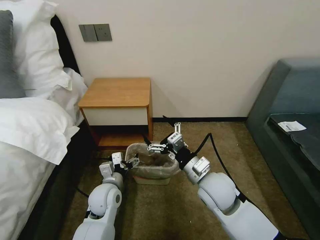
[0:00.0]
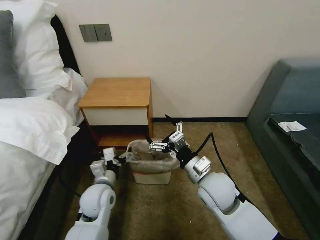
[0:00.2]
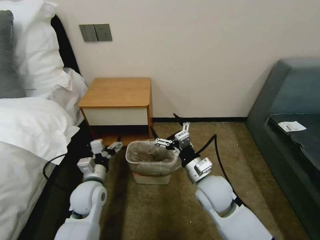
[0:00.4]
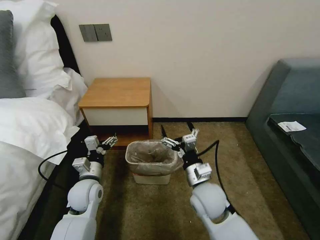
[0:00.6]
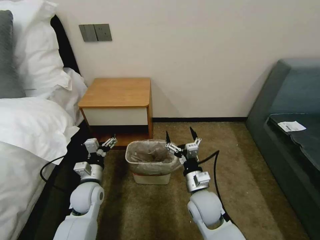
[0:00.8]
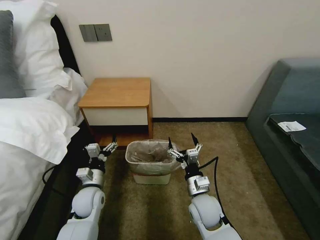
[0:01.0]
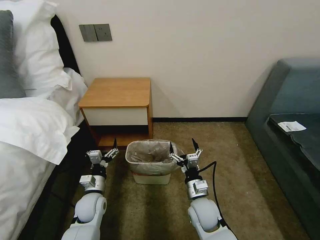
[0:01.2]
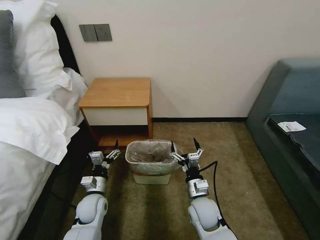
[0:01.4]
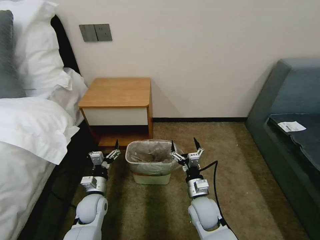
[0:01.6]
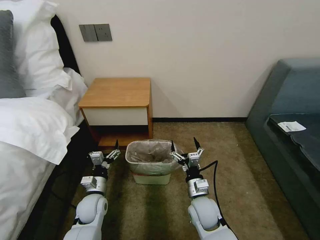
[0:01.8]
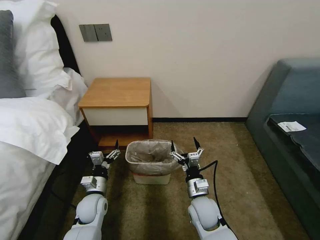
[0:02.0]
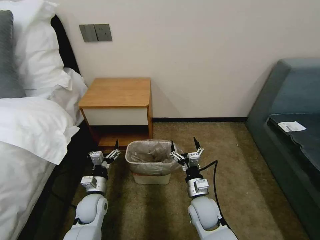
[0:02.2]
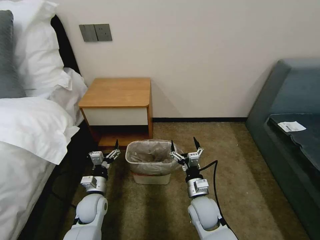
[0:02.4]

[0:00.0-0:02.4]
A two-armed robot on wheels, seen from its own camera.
Task of the whole recording: Pick up the garbage bag from the table and place it over the trash can.
0:00.0 to 0:01.2: The left gripper moves downward and to the left, approximately 10 cm; the right gripper travels downward by roughly 15 cm.
0:01.2 to 0:02.4: The two grippers keep their place.

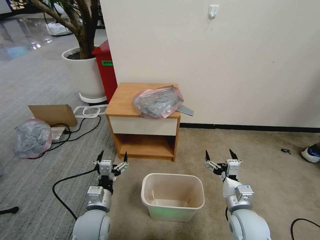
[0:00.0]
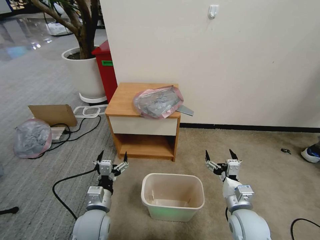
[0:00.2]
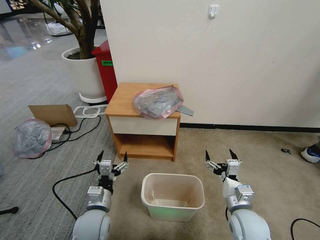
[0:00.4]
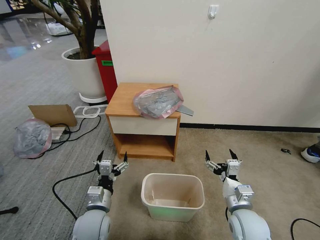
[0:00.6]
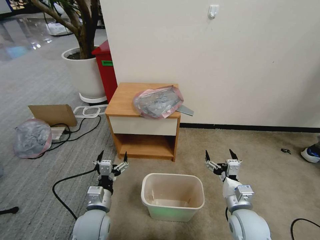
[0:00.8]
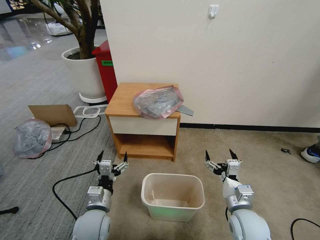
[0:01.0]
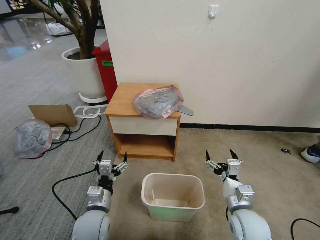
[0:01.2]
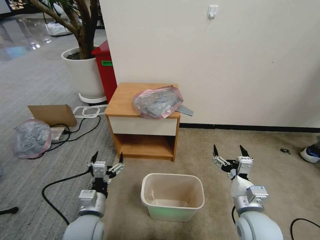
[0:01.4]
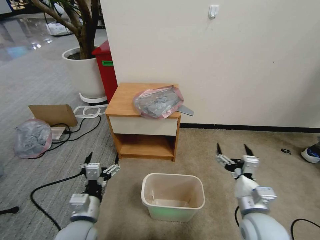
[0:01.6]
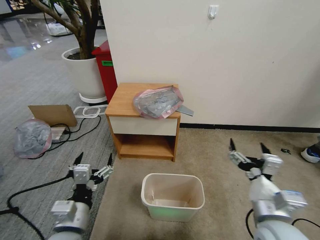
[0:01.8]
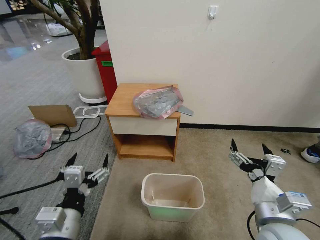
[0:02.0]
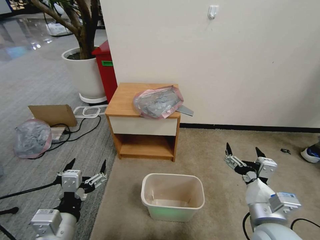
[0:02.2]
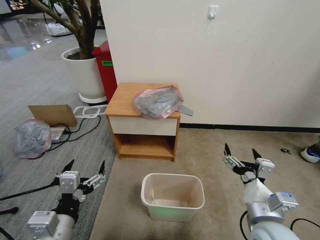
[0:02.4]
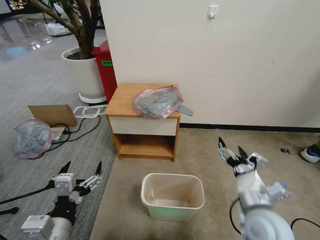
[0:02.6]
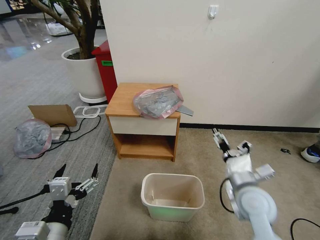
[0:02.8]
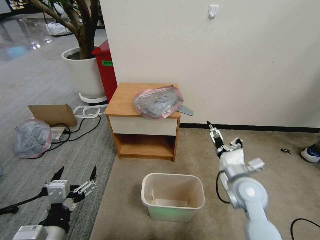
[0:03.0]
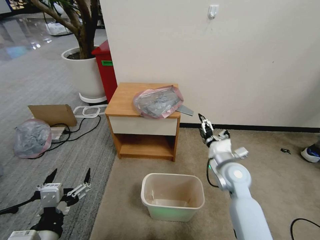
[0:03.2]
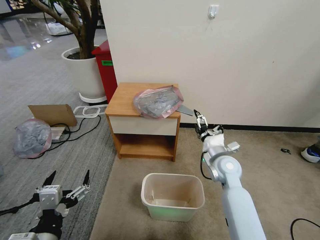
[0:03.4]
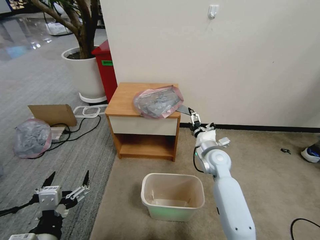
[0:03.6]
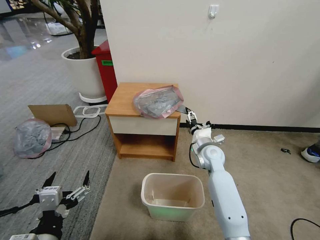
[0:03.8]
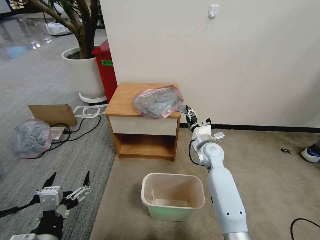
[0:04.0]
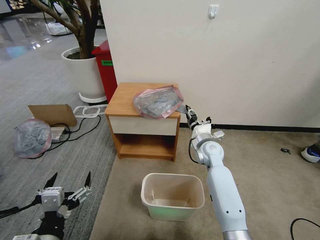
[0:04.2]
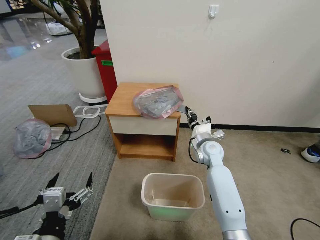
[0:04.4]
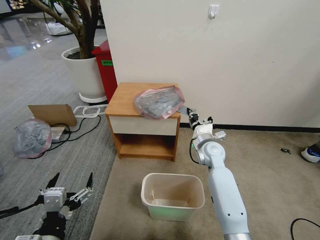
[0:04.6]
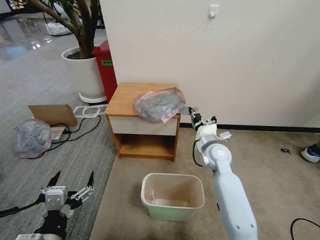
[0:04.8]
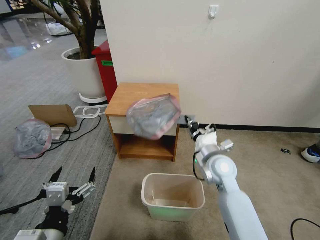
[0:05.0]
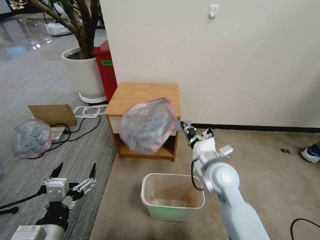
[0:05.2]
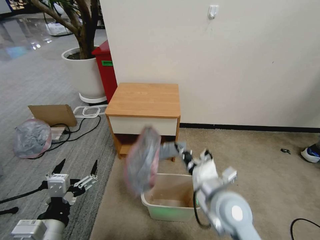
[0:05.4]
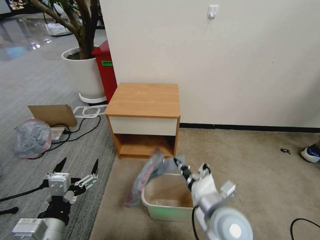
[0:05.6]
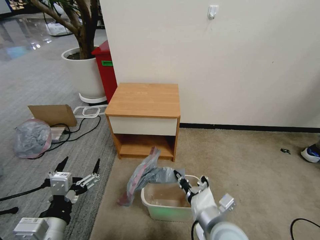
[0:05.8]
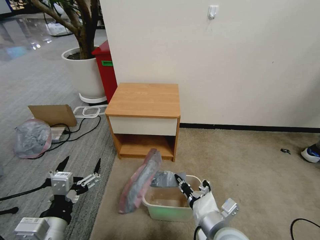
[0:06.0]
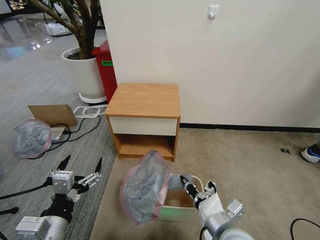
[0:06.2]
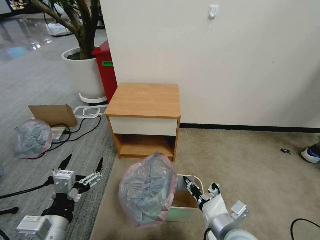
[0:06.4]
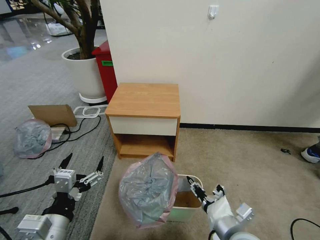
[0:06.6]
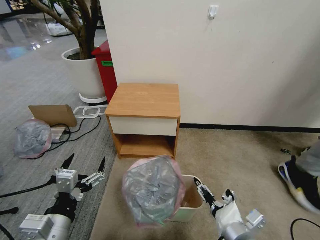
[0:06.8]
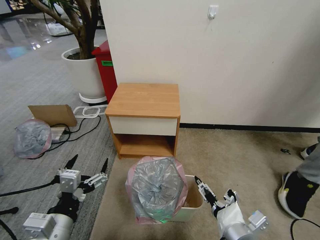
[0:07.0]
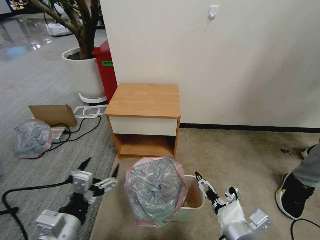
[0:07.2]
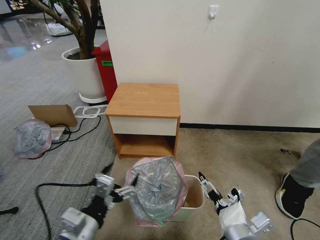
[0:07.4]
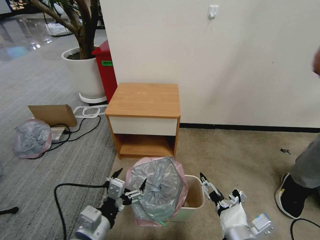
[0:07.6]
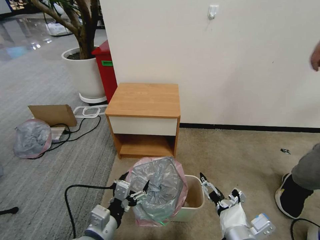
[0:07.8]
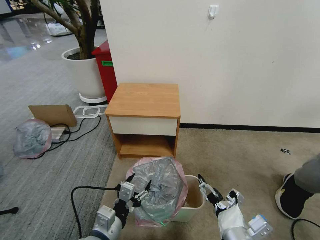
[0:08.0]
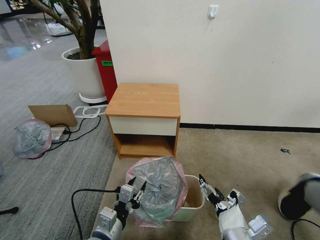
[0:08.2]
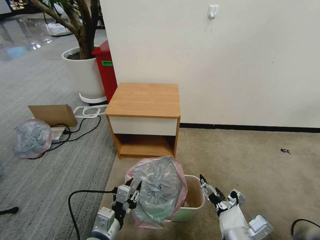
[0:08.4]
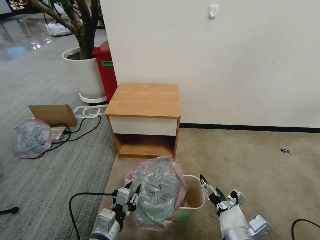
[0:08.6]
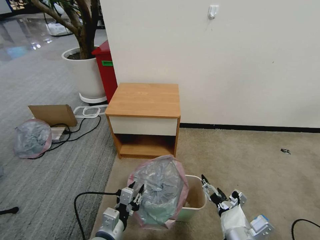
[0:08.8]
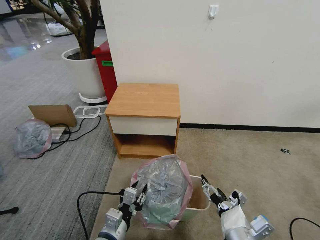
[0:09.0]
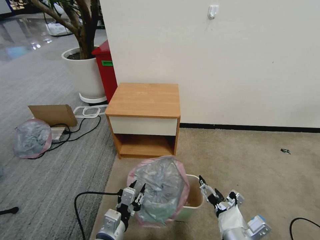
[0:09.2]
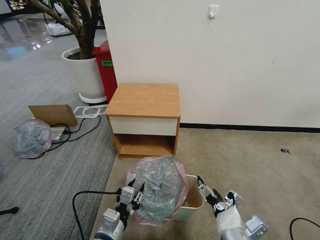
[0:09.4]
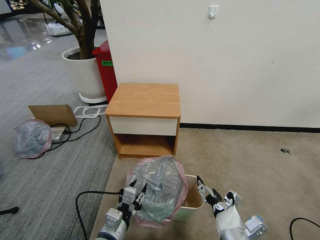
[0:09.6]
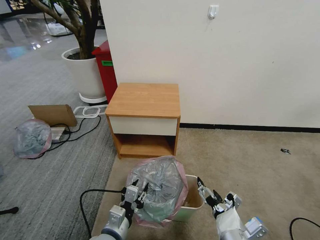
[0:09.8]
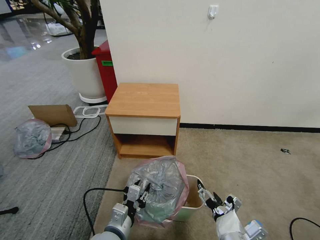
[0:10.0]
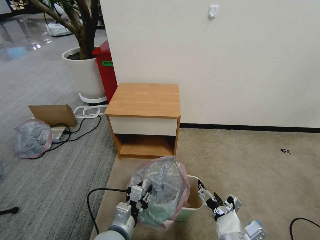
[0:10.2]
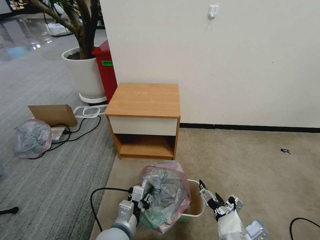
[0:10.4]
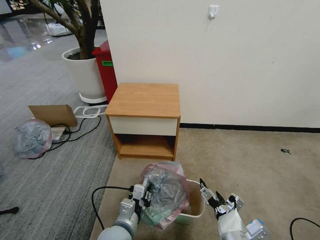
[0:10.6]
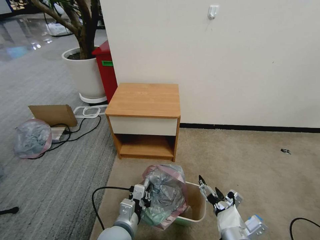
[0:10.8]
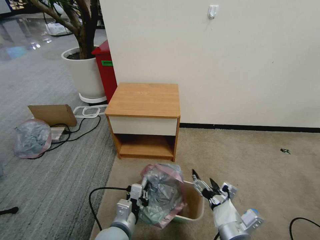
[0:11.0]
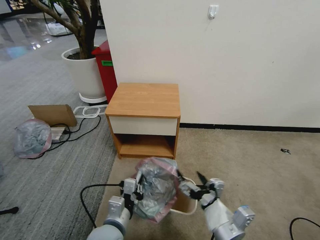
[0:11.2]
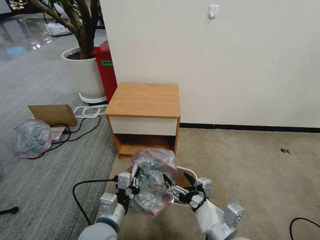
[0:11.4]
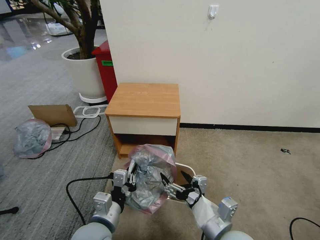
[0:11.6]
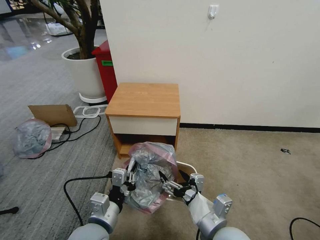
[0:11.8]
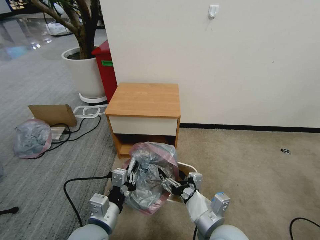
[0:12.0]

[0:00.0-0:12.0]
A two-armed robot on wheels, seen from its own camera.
Task of the whole recording: Pick up the garbage bag from the table and place it over the trash can.
0:01.6 to 0:03.0: The right gripper shifts about 10 cm forward; the left gripper goes roughly 10 cm backward and upward.
0:03.0 to 0:04.4: The right gripper shifts about 15 cm forward and to the left, and closes up.
0:04.4 to 0:06.0: The right gripper travels backward by roughly 30 cm.
0:06.0 to 0:07.6: The left gripper travels to the right by some 5 cm. Meanwhile the right gripper changes place by about 5 cm, and opens up.
0:07.6 to 0:09.0: The left gripper heads downward, covering approximately 10 cm, and closes up.
0:09.0 to 0:10.4: The grippers stay close to where they were, moving slightly.
0:10.4 to 0:12.0: The right gripper changes place by about 10 cm, while the left gripper travels upward by some 5 cm, and closes.

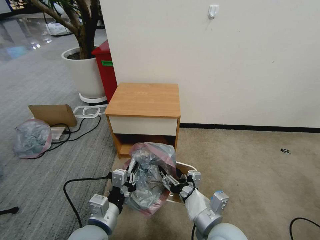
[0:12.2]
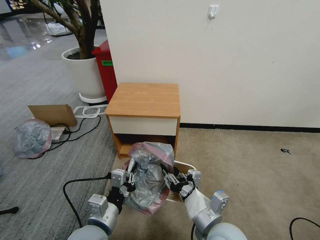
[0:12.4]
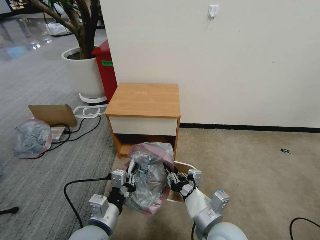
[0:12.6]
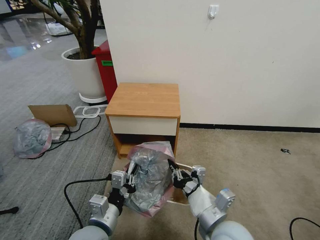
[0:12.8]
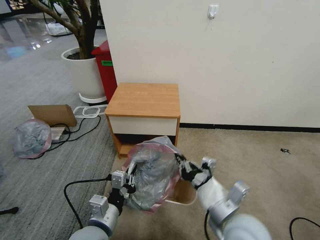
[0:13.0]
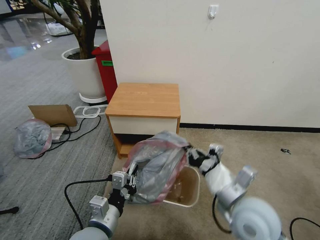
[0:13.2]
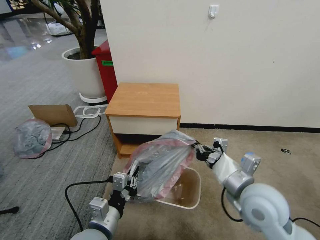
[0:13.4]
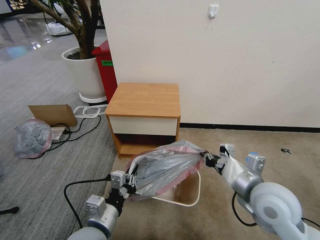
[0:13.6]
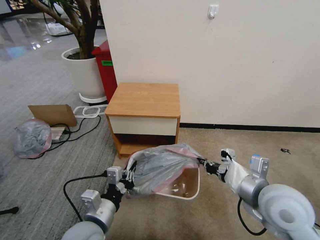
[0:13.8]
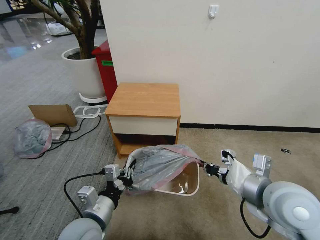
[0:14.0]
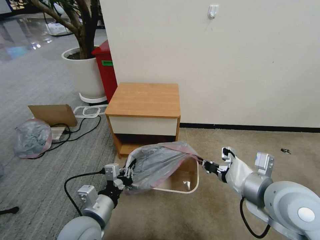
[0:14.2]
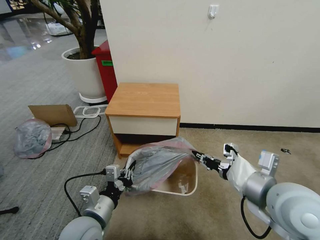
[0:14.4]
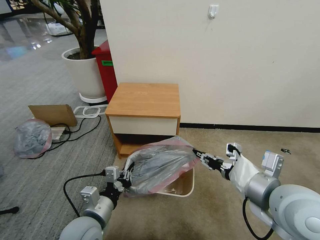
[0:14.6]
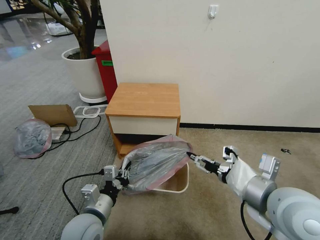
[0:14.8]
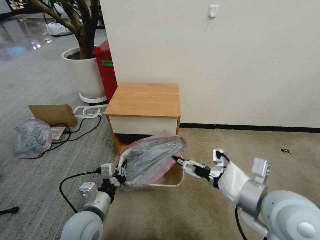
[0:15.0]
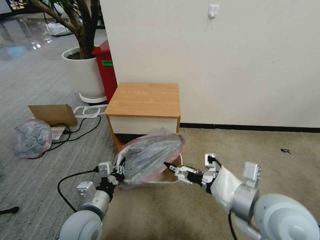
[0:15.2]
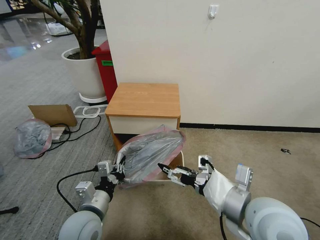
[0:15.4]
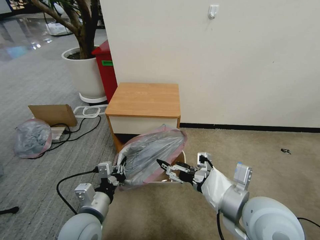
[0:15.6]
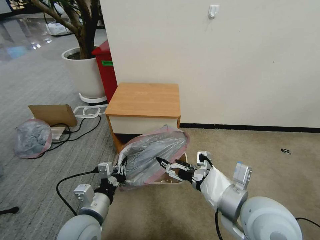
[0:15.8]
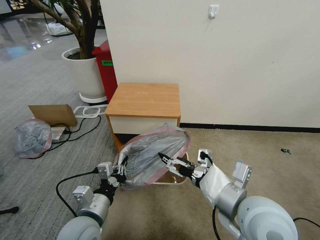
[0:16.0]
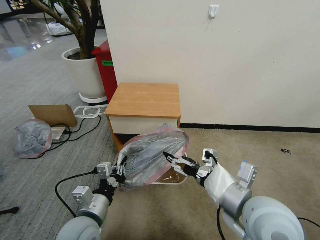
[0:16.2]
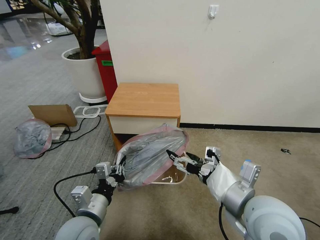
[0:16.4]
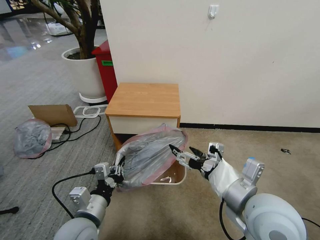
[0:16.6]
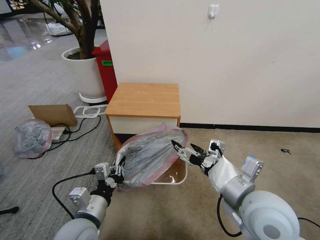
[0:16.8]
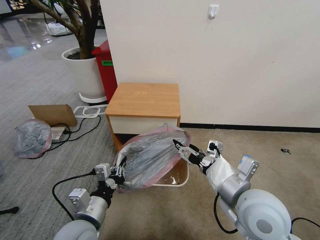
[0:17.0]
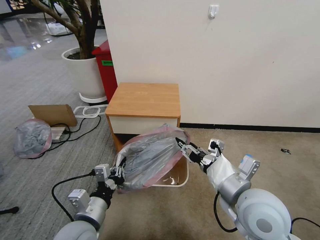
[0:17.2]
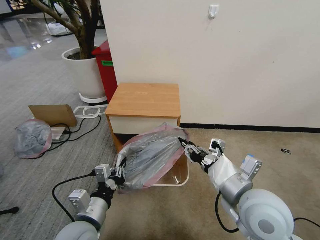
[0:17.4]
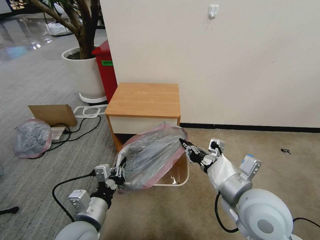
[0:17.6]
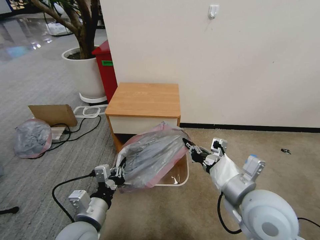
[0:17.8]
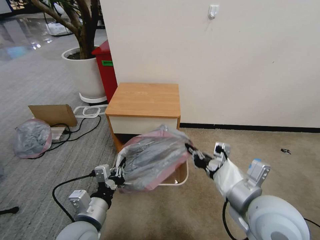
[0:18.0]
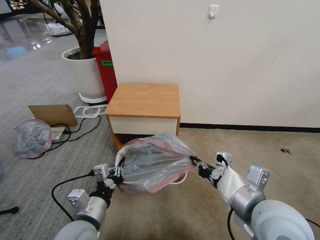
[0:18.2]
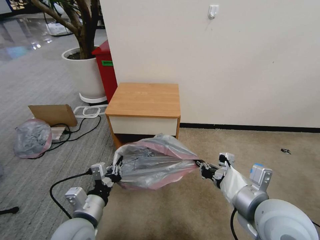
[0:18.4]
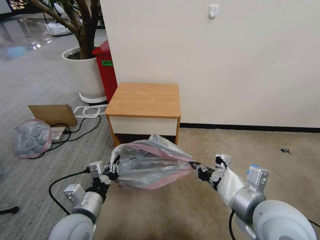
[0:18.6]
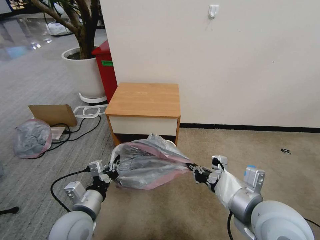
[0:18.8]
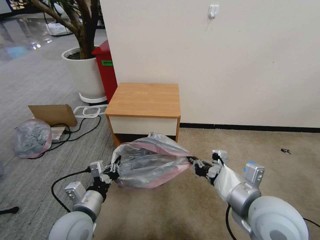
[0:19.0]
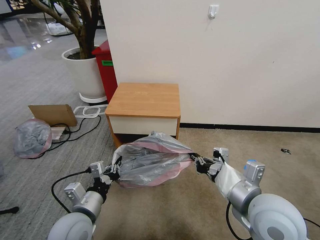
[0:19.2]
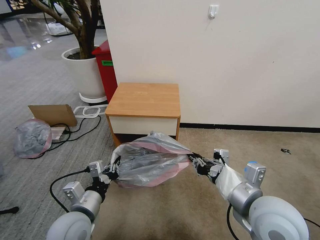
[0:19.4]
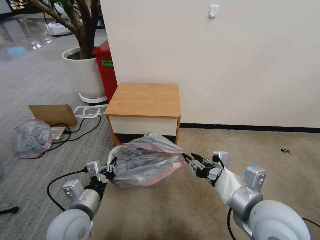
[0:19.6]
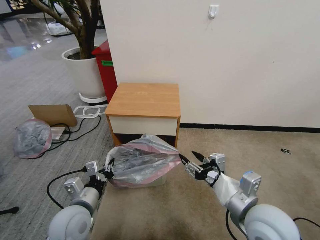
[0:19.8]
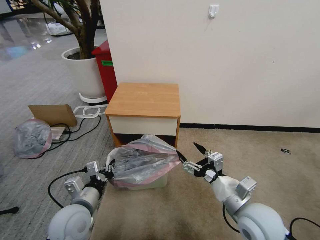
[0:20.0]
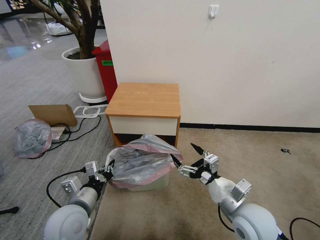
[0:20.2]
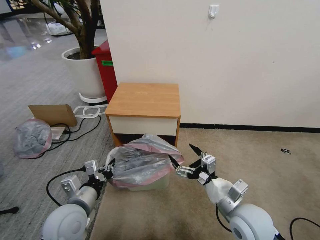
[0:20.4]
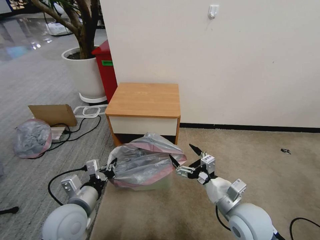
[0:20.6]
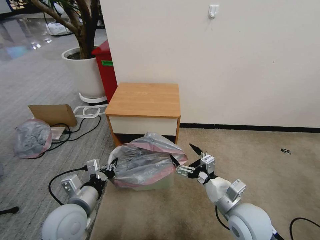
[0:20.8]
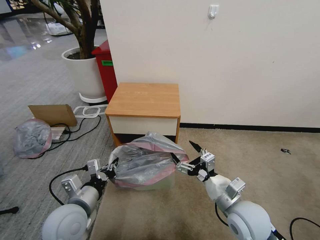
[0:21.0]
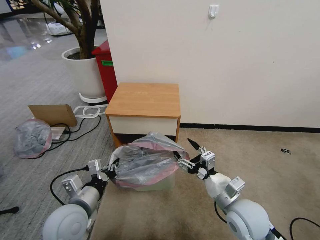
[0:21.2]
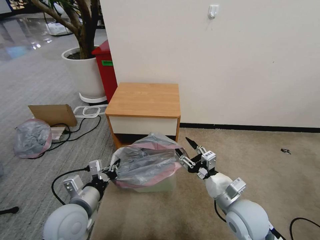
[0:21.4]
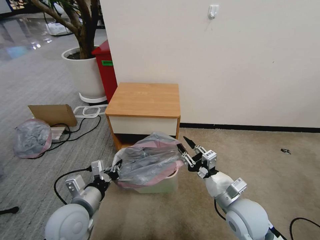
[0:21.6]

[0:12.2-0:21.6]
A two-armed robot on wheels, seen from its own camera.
Task of the whole recording: Pick up the garbage bag from the table and place it over the trash can.
0:12.2 to 0:13.8: The right gripper heads to the right, upward and forward, covering roughly 15 cm, and closes.
0:13.8 to 0:15.4: The right gripper travels to the left by approximately 5 cm, and opens up.
0:15.4 to 0:17.0: The grippers make only small movements.
0:17.0 to 0:18.4: The right gripper closes.
0:18.4 to 0:20.0: The right gripper travels downward by roughly 10 cm, and opens.
0:20.0 to 0:21.6: The right gripper closes its fingers.
